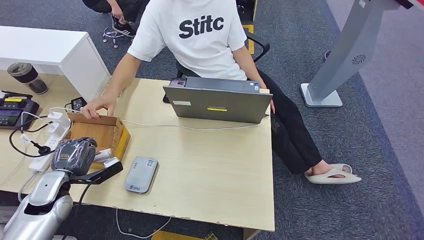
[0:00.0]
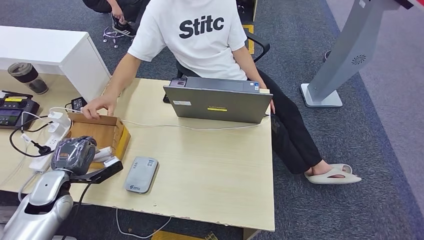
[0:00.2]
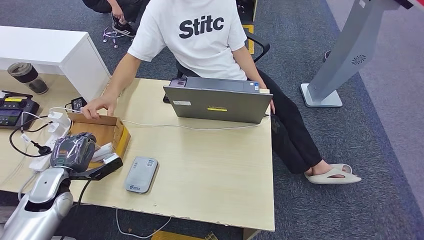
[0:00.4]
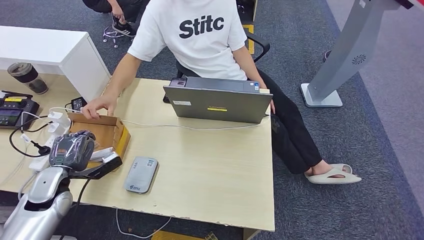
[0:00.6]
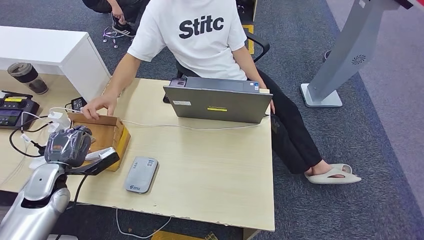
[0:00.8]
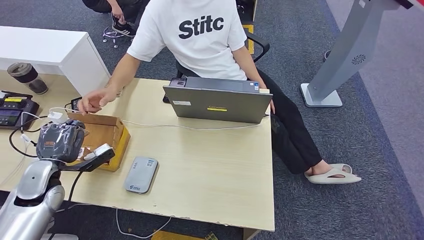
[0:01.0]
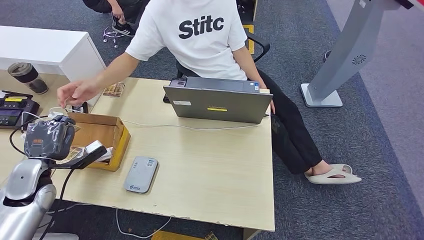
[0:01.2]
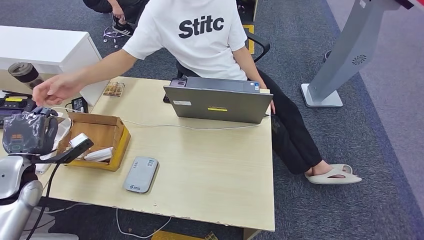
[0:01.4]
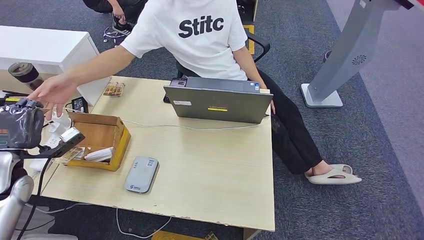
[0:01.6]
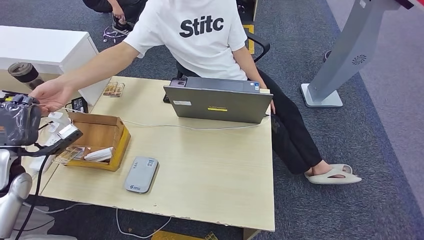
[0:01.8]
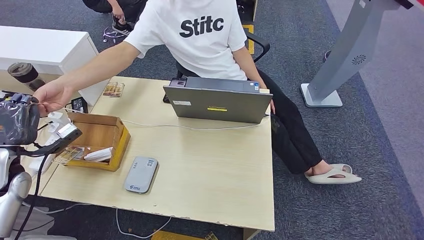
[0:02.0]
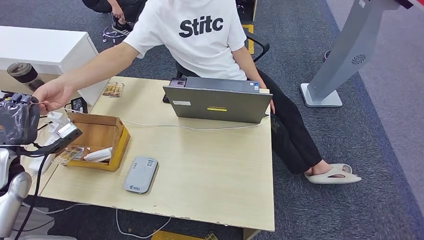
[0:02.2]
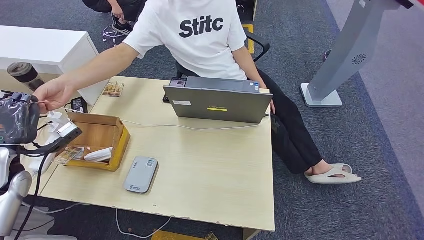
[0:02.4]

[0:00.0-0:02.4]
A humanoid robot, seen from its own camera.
Step, 0:01.4 to 0:02.4: Hand the room key to the person.
0:00.0 to 0:01.2: The left hand moves about 5 cm.
0:01.2 to 0:02.4: The left hand shifts roughly 5 cm upward.

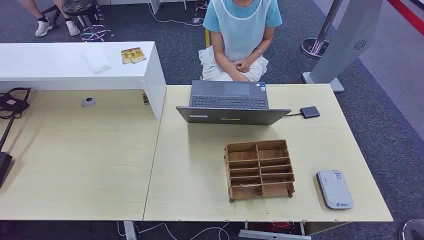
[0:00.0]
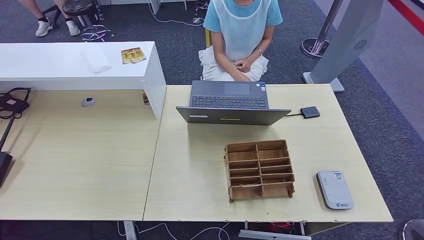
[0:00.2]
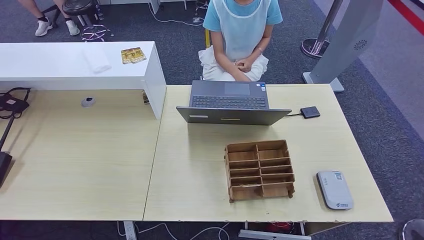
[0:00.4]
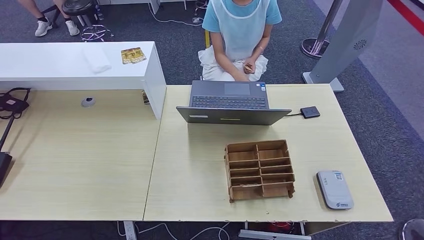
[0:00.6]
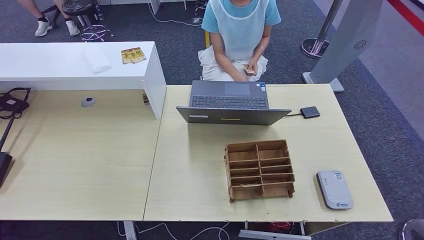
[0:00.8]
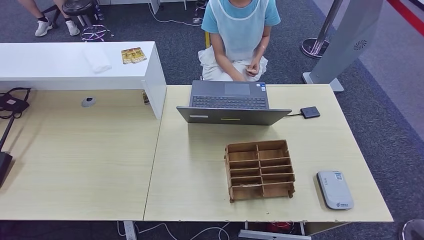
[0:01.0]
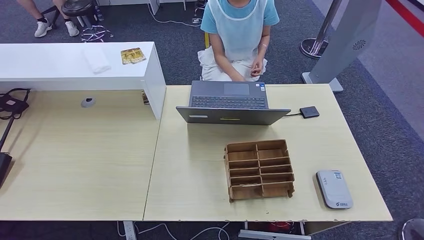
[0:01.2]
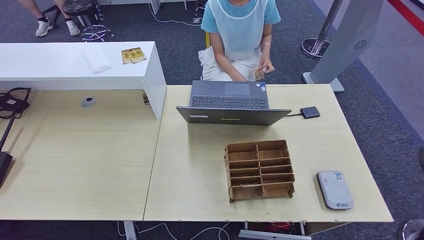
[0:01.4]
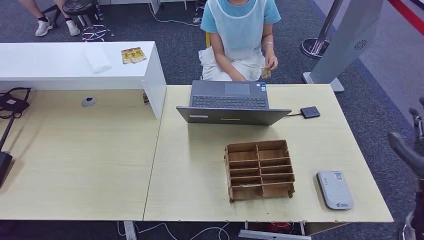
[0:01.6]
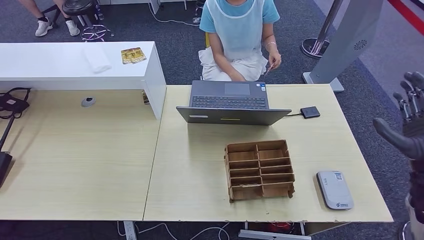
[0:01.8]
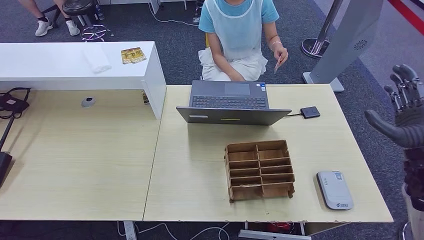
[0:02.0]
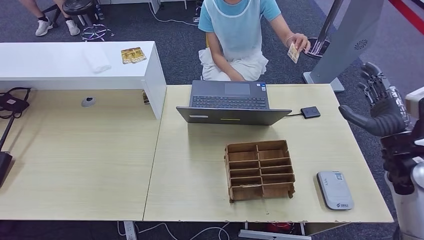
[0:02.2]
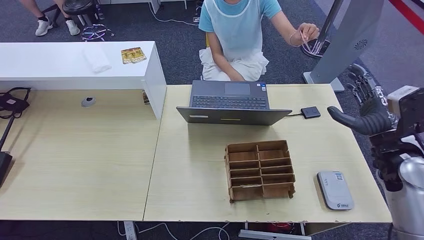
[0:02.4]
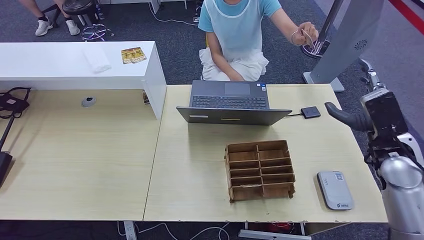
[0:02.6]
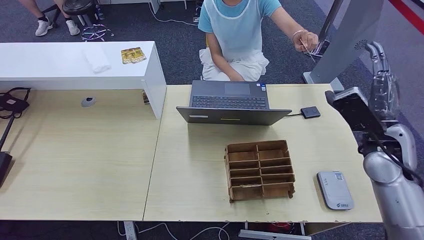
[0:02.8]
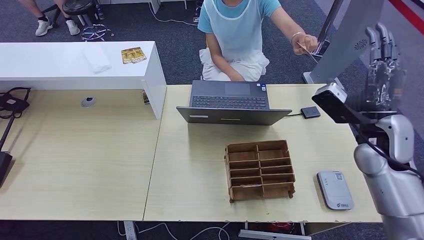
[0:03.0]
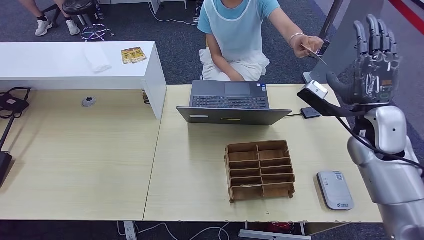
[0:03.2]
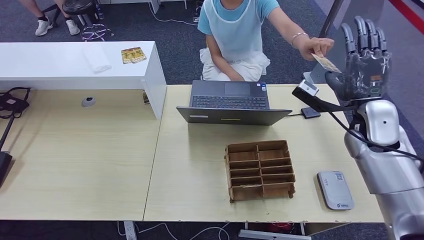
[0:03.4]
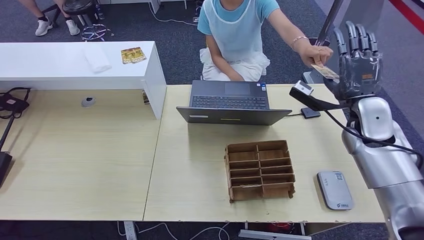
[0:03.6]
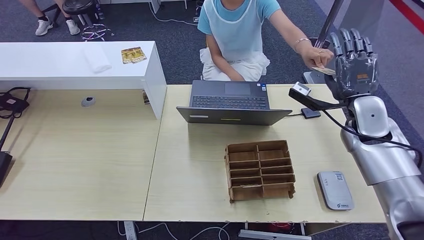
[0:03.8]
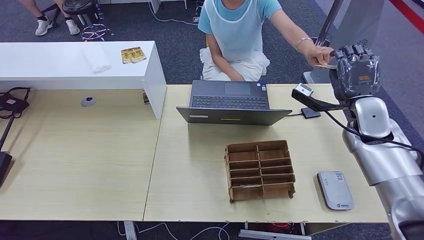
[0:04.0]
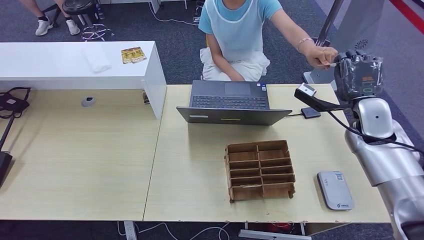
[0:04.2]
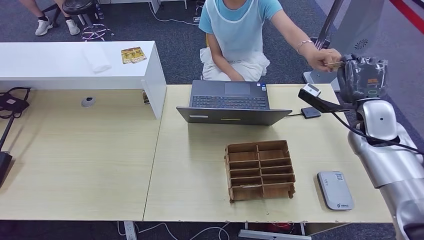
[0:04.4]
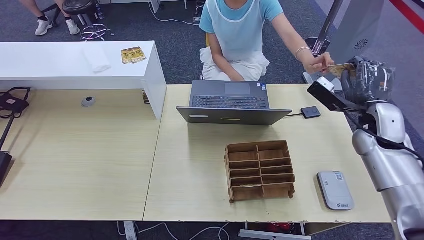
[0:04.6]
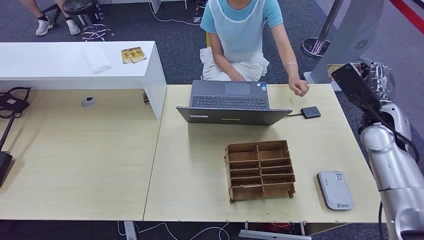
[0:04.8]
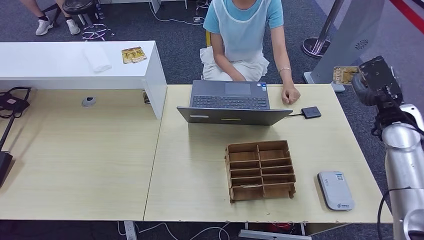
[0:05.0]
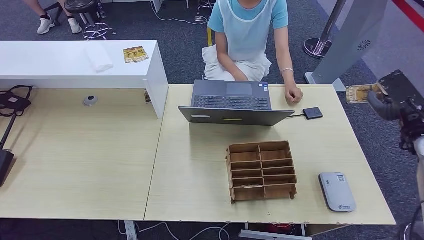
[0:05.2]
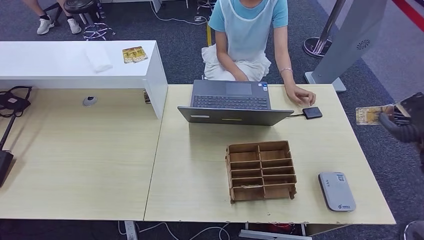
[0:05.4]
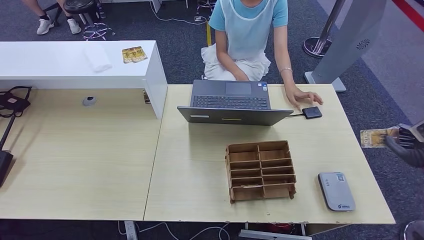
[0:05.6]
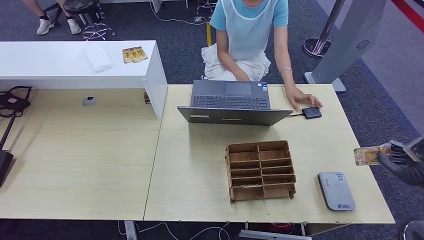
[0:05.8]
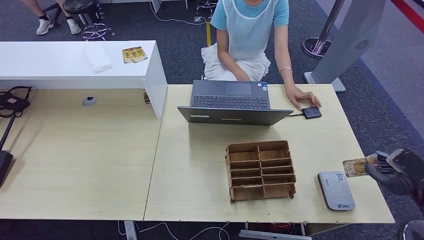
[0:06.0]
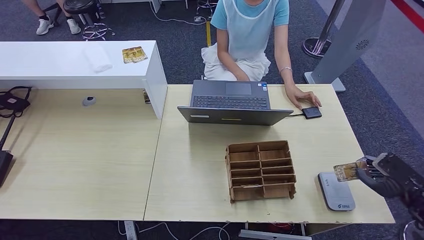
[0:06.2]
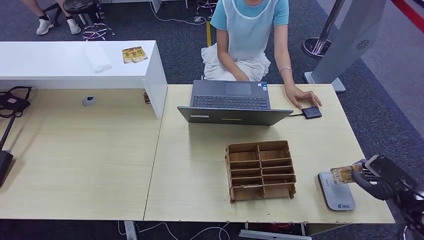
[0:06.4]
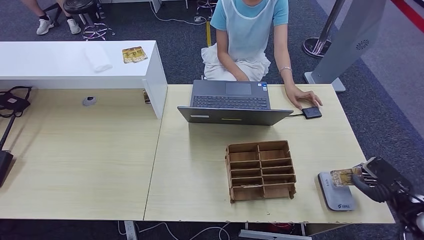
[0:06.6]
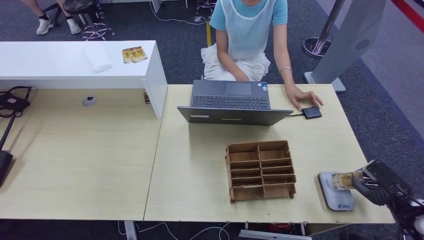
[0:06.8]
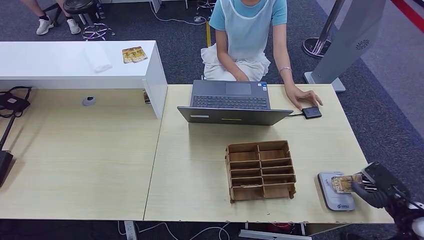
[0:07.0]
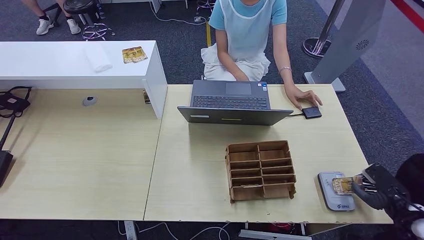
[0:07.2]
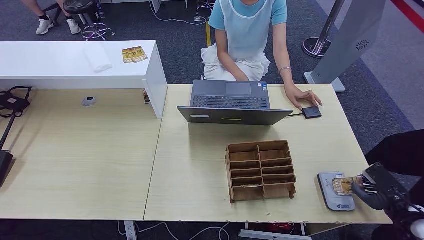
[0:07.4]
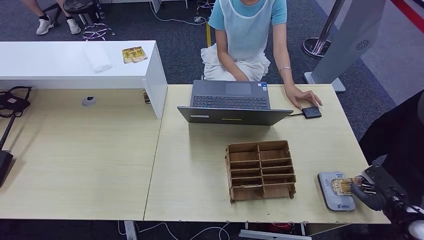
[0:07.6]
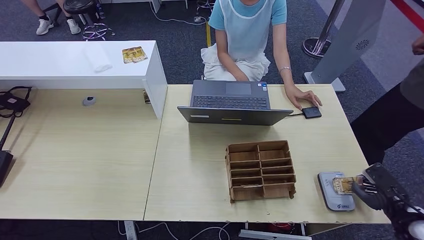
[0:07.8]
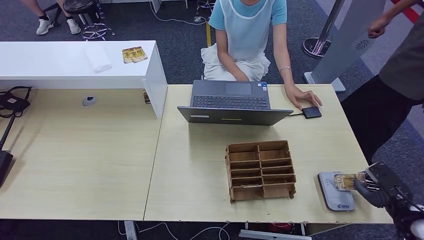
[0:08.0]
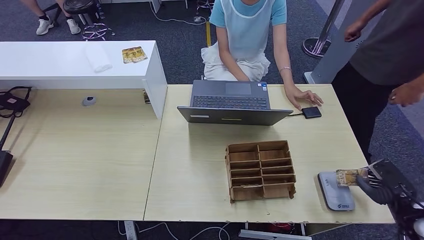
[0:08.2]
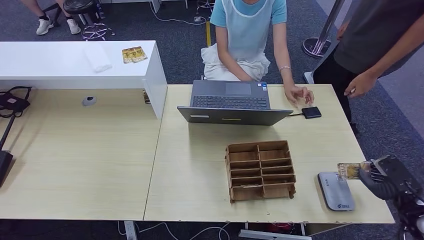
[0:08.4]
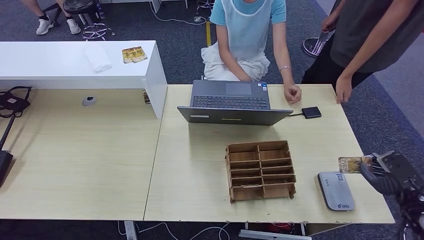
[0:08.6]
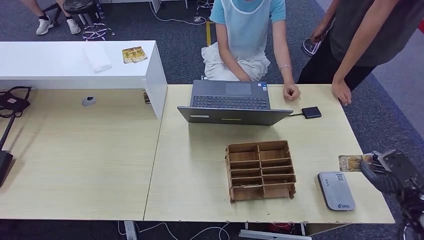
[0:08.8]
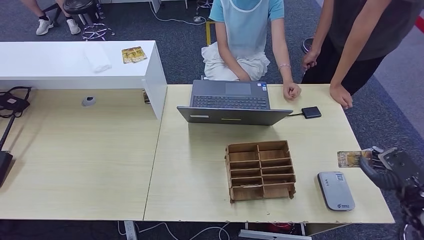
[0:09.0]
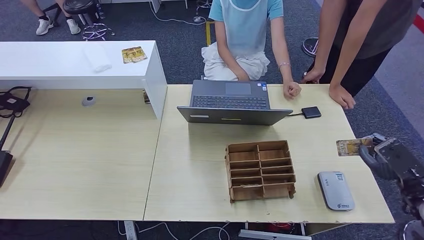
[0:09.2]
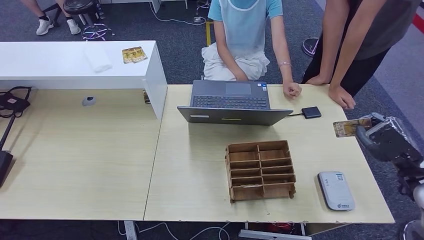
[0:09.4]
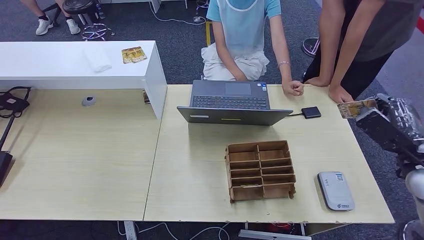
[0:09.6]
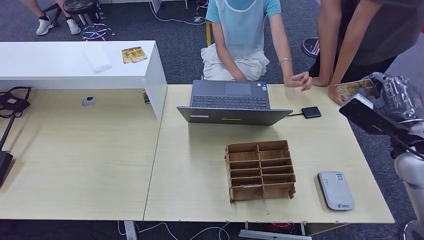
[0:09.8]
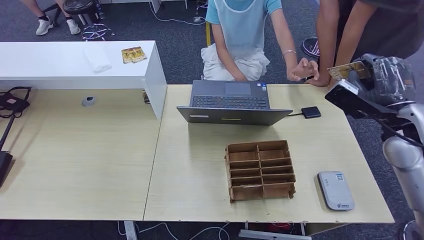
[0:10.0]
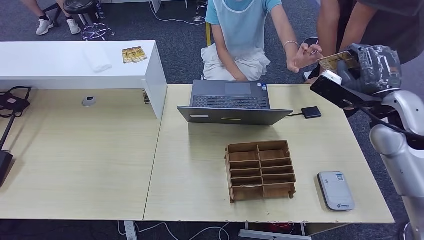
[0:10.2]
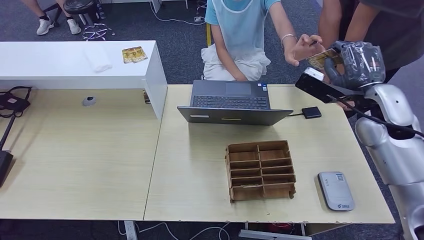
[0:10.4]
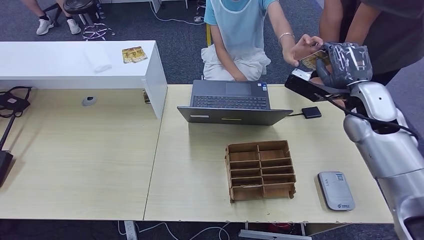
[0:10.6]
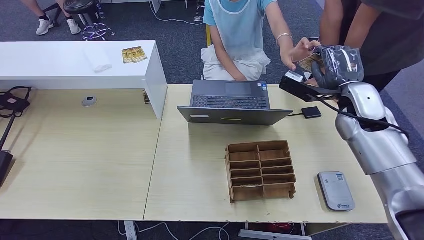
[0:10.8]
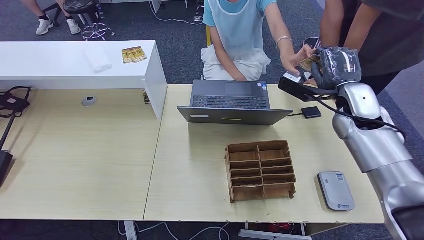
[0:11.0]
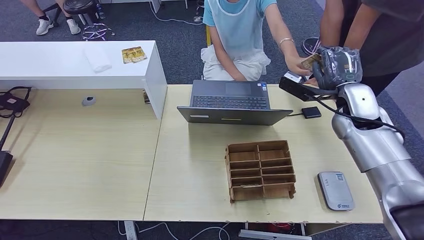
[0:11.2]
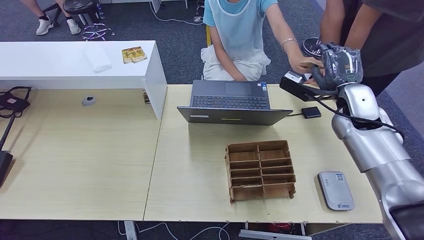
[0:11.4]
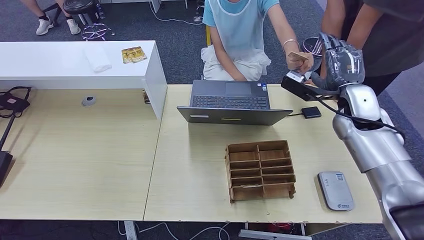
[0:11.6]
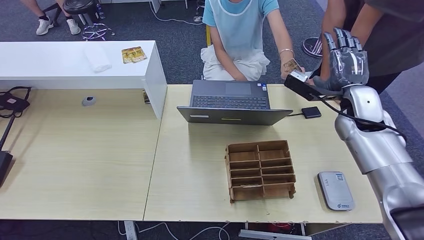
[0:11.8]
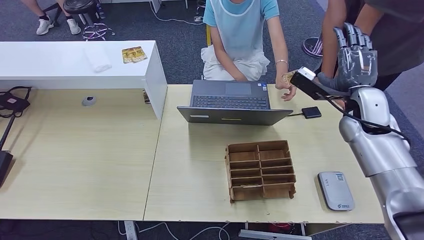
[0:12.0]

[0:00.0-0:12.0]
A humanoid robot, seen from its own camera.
Step, 0:00.0 to 0:05.4: Take the ID card from the person's hand.
Step, 0:05.6 to 0:07.8: Place the ID card on the card reader.
0:01.6 to 0:03.0: The right hand travels forward and to the left by some 15 cm.
0:03.0 to 0:04.4: The right hand is displaced forward by some 5 cm.
0:04.4 to 0:06.0: The right hand shifts about 25 cm backward, to the right and downward.
0:06.0 to 0:07.6: The right hand shifts approximately 10 cm downward.
0:07.6 to 0:09.0: The right hand moves upward, approximately 5 cm.
0:09.0 to 0:10.4: The right hand is displaced upward, forward and to the left by approximately 30 cm.
0:10.4 to 0:12.0: The hands move only a little.

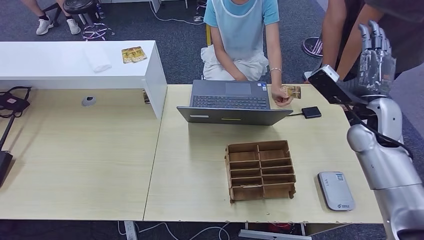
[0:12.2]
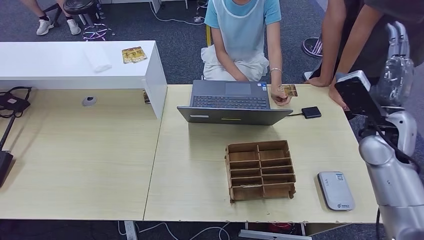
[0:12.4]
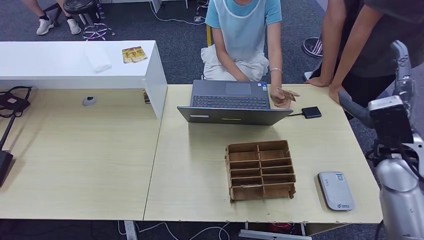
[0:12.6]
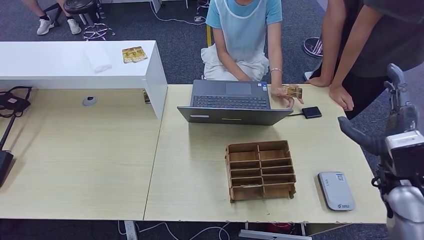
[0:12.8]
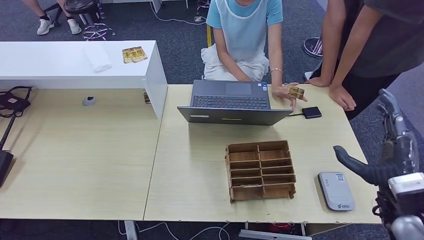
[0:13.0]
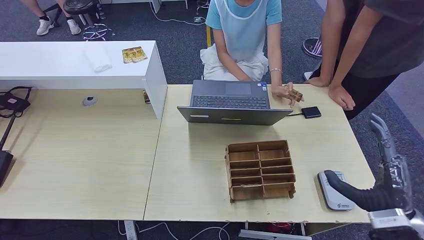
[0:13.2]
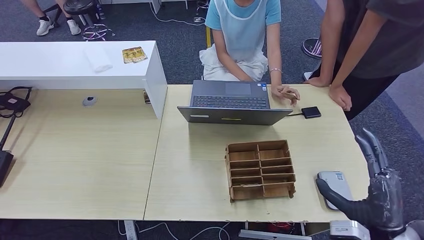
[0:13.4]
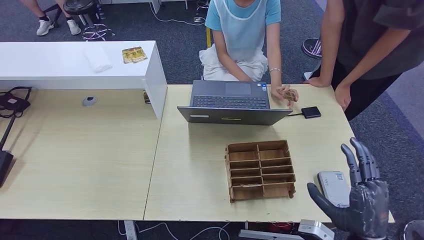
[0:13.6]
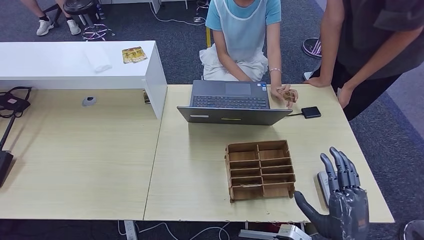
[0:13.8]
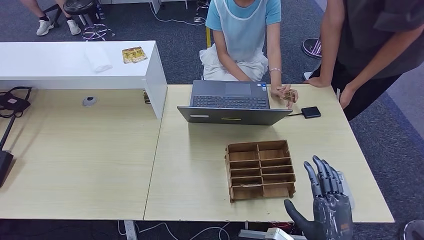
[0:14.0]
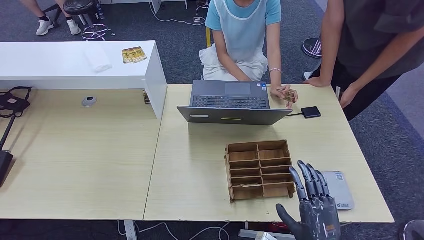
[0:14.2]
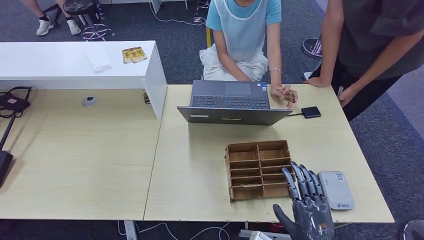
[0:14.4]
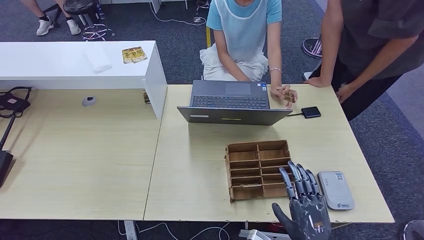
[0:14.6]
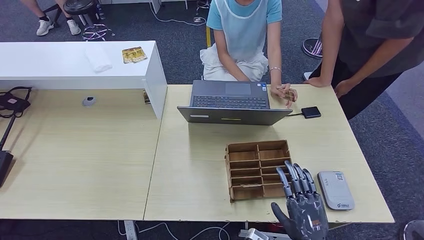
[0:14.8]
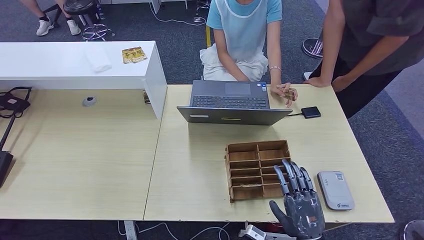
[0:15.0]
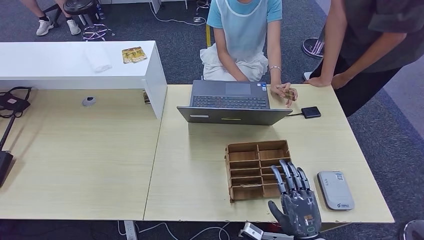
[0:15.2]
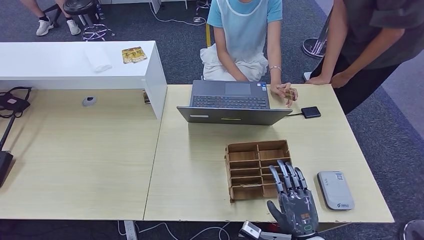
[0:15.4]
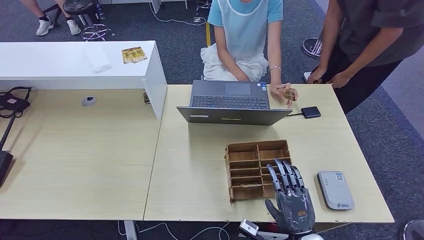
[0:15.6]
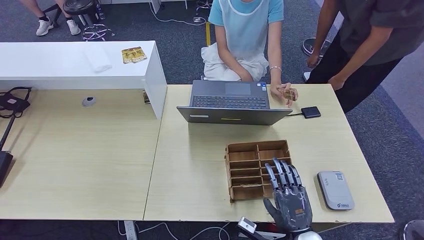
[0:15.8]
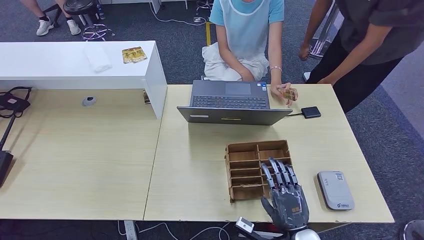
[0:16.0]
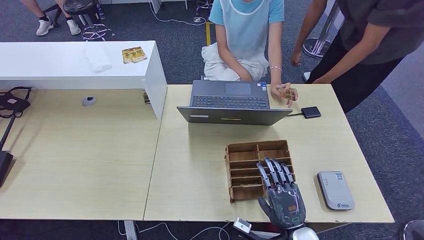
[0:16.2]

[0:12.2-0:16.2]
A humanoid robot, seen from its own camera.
0:12.2 to 0:13.6: The right hand shifts some 30 cm backward and downward.
0:13.6 to 0:14.8: The right hand goes about 10 cm downward and to the left.
0:14.8 to 0:16.2: There are only small adjustments of the hands.
